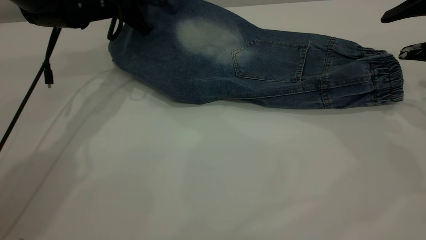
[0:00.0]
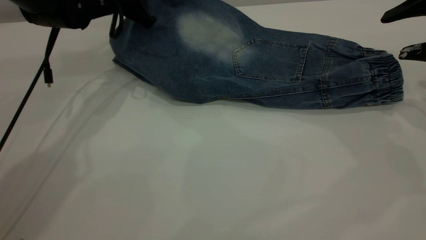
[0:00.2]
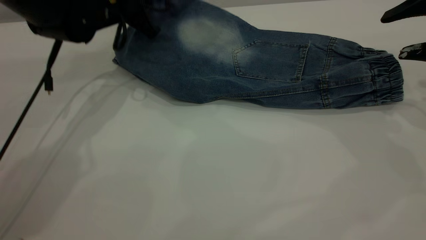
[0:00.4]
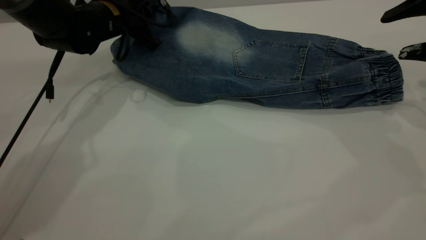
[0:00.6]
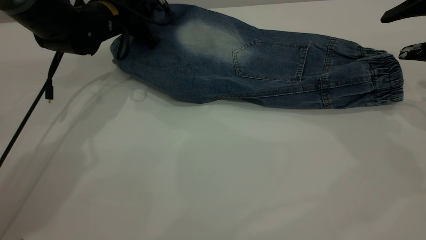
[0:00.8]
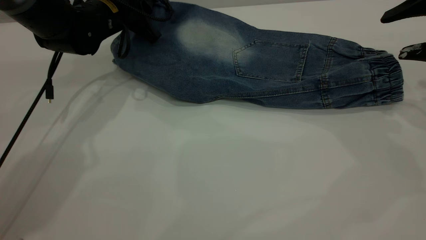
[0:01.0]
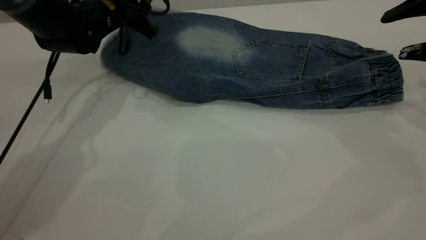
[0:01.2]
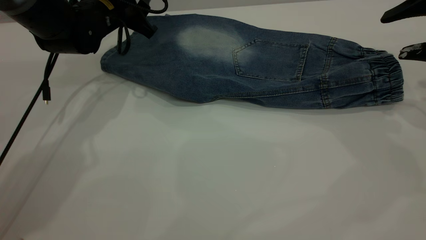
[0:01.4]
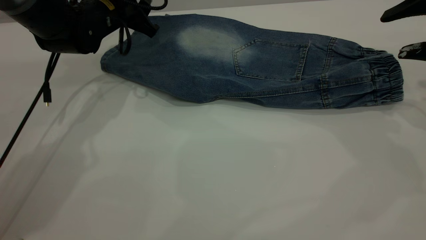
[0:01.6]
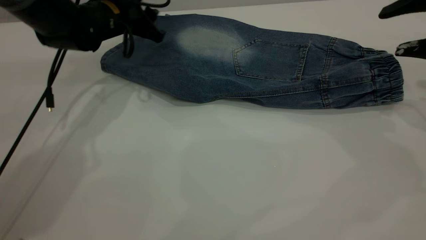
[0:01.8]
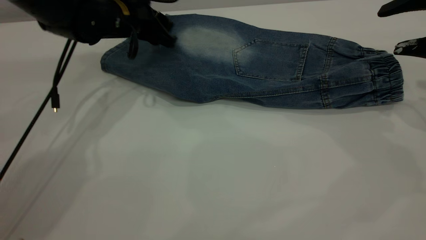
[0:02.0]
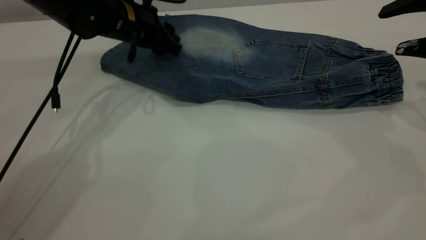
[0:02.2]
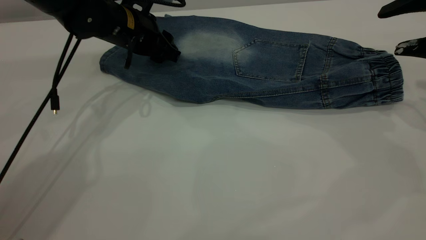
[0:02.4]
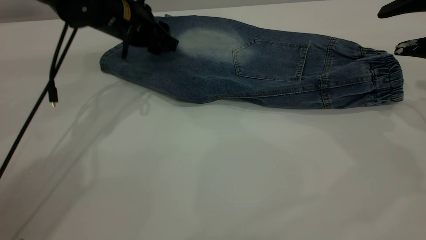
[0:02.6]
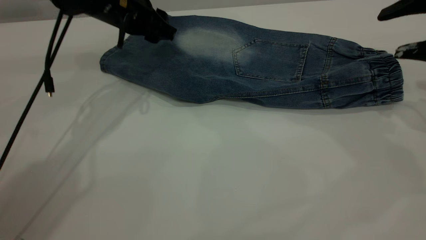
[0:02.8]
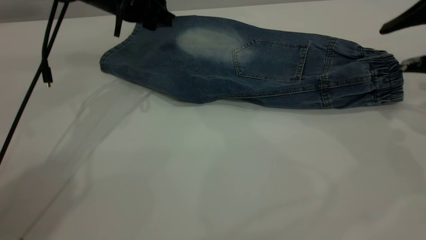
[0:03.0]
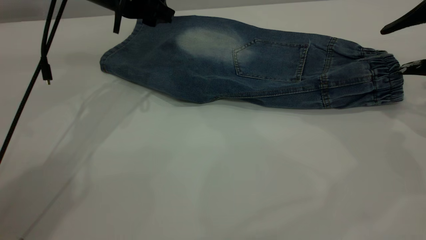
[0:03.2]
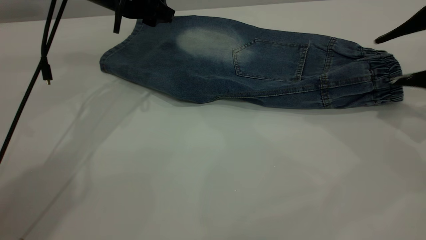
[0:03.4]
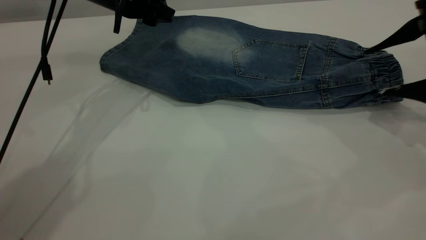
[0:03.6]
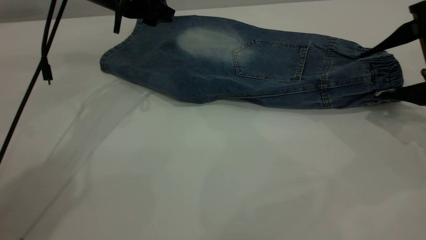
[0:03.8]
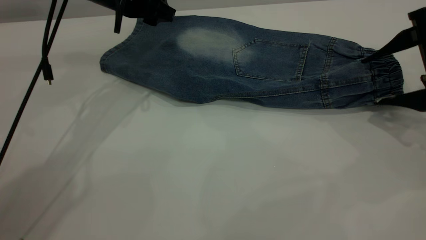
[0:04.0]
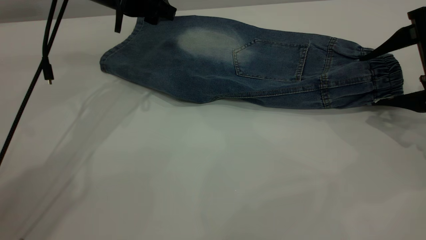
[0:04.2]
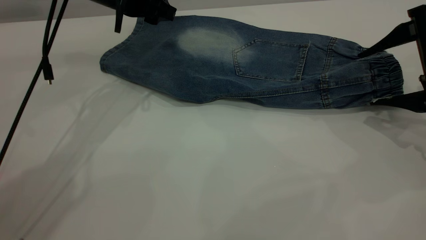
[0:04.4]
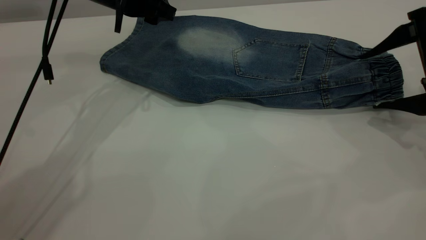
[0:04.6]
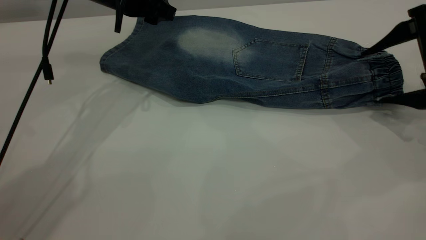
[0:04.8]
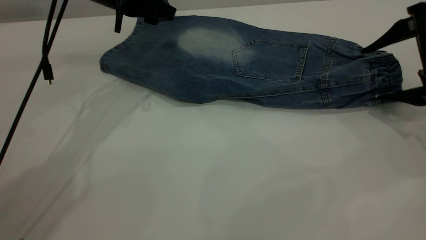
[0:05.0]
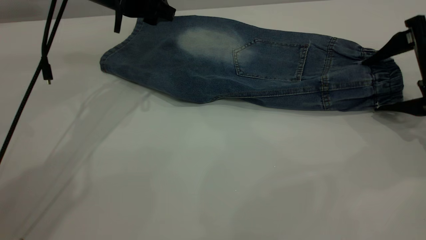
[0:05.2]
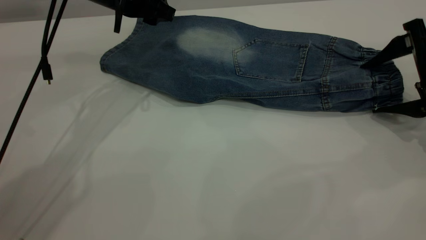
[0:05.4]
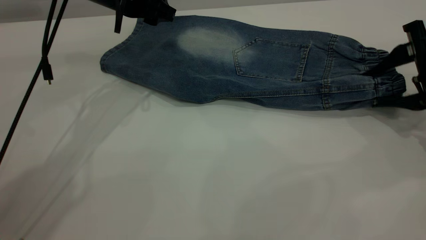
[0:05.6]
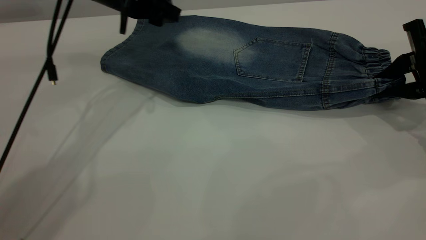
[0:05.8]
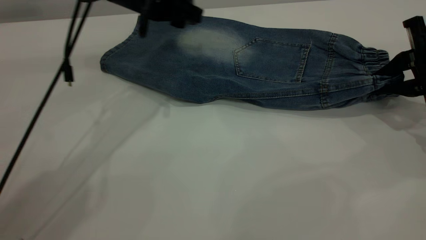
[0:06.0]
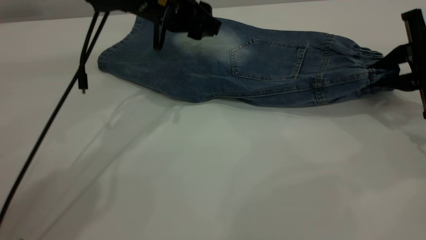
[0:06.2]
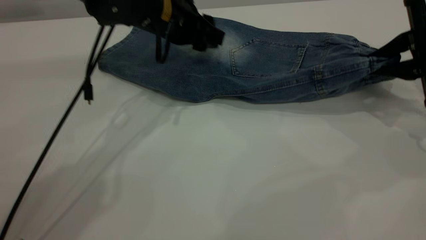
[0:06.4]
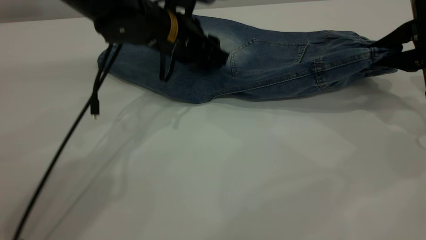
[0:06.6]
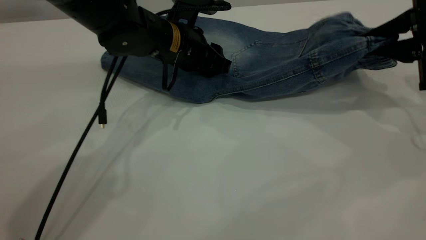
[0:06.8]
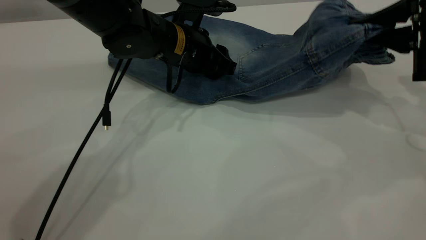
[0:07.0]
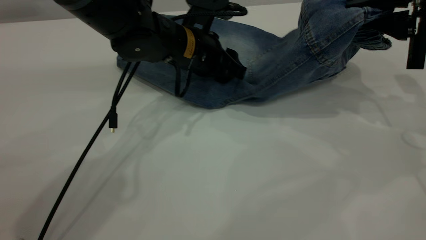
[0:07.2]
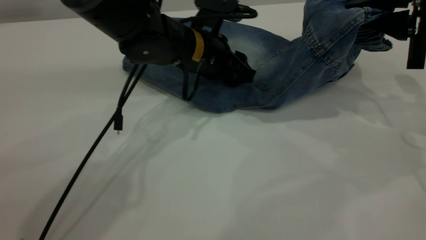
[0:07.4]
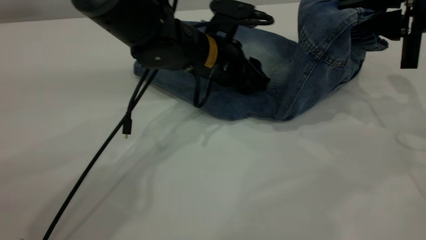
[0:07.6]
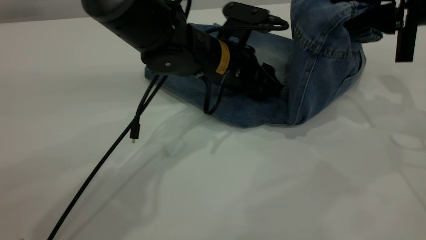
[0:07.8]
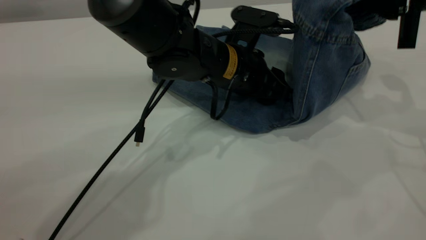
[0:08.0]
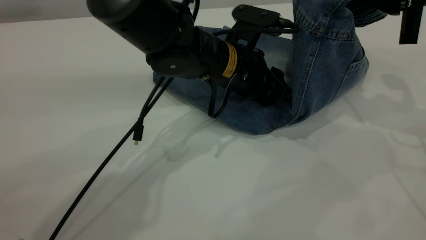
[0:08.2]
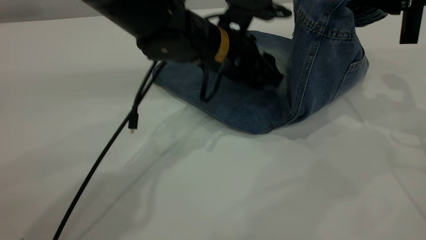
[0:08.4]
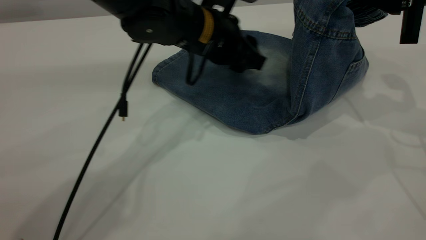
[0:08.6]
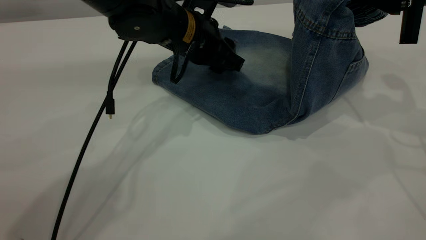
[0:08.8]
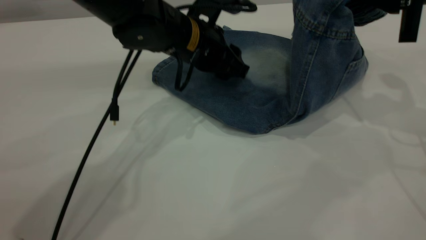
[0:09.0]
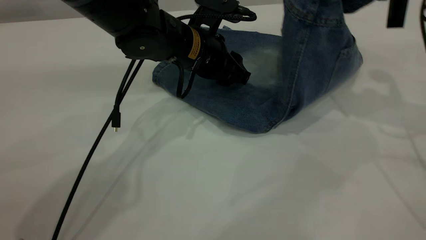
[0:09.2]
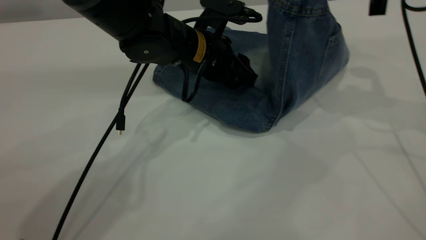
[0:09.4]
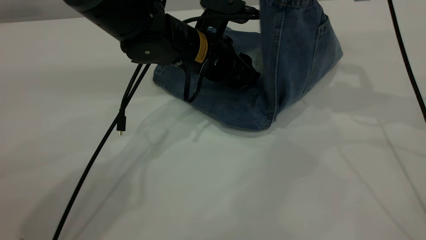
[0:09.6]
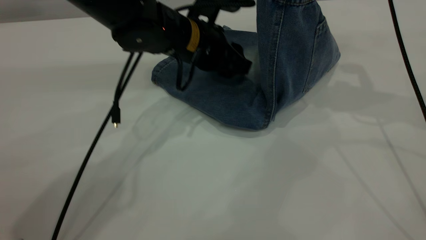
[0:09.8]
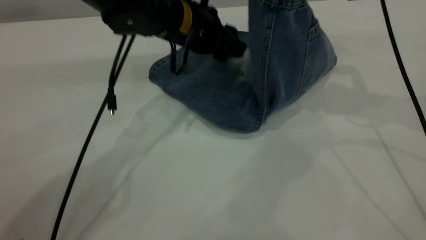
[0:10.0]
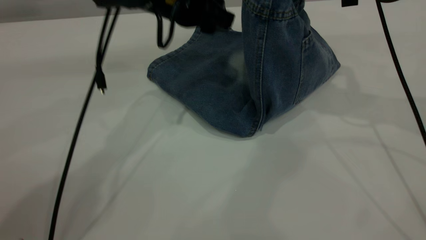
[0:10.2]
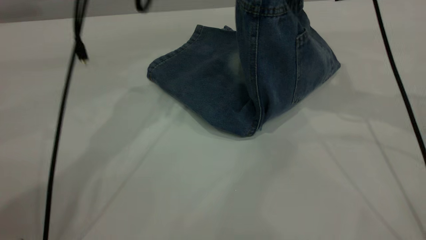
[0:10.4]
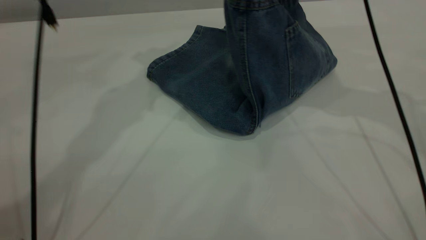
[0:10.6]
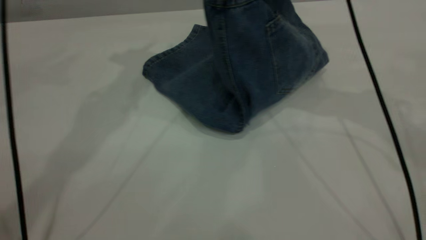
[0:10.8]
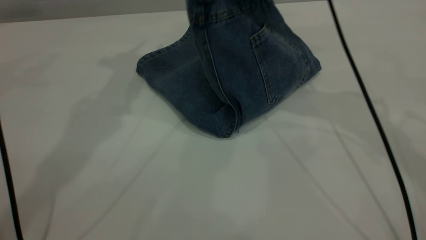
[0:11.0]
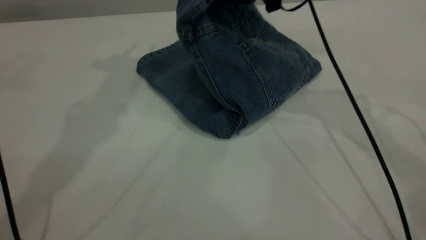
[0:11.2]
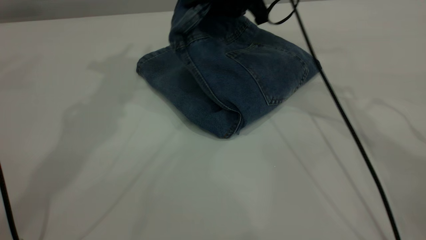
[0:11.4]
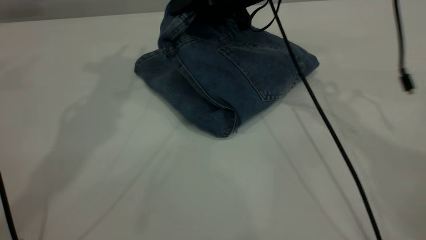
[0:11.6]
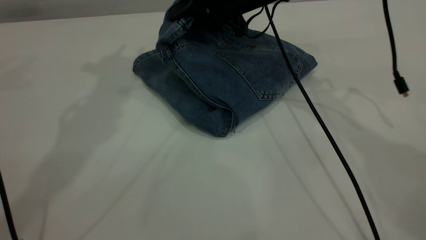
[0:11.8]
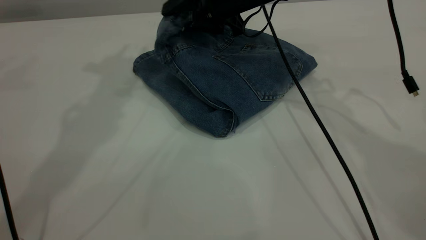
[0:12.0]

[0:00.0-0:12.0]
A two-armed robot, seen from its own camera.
0:00.0 to 0:01.6: The left gripper opens up.
0:01.6 to 0:03.0: The left gripper shifts approximately 5 cm upward.
0:04.4 to 0:06.0: The left gripper goes about 5 cm to the right. The right gripper closes.
0:06.0 to 0:07.6: The right gripper travels upward by approximately 5 cm; the left gripper moves downward, to the right and backward, some 15 cm.
0:07.6 to 0:09.0: The grippers stay close to where they were, moving slightly.
0:09.0 to 0:10.4: The left gripper is displaced upward and to the left by about 15 cm, while the right gripper moves to the left, some 10 cm.
0:10.4 to 0:12.0: The left gripper moves upward and to the left, about 15 cm; the right gripper heads to the left, downward and forward, covering some 15 cm, and opens up.

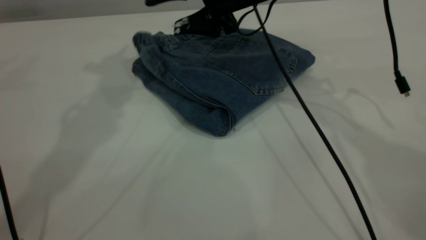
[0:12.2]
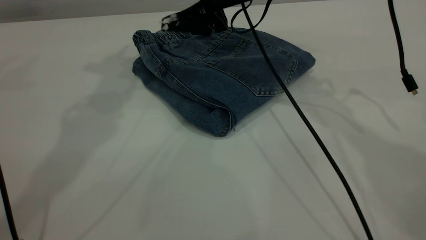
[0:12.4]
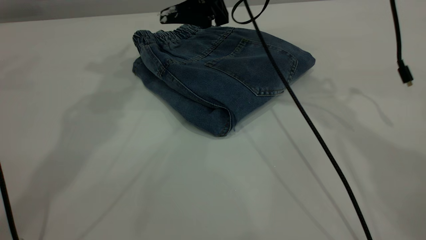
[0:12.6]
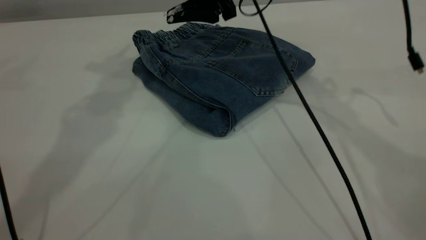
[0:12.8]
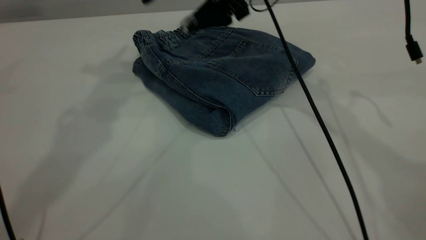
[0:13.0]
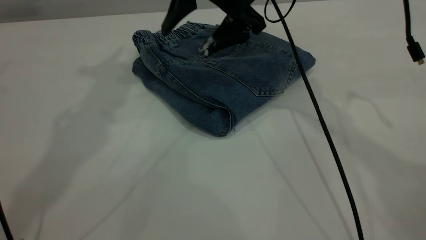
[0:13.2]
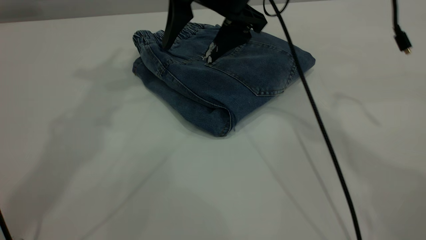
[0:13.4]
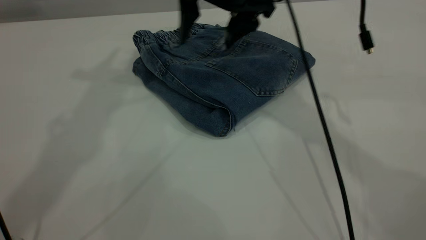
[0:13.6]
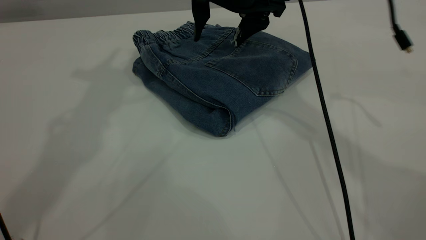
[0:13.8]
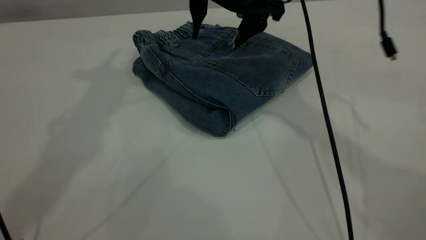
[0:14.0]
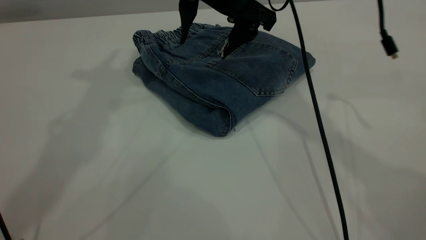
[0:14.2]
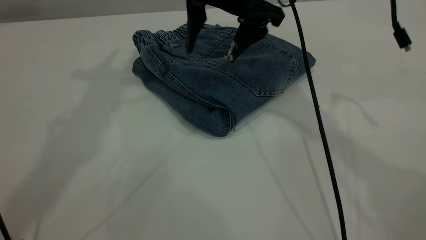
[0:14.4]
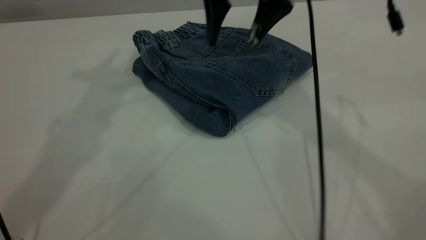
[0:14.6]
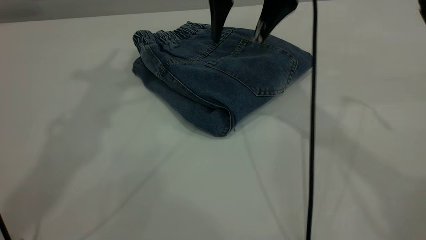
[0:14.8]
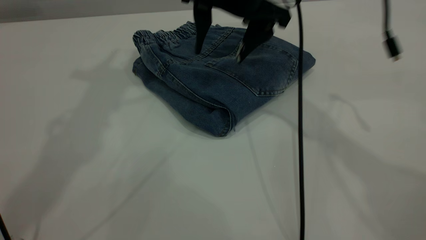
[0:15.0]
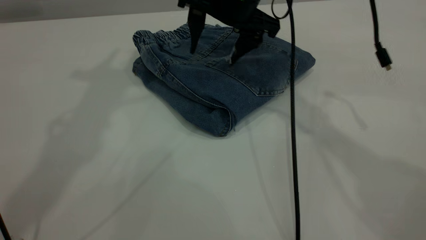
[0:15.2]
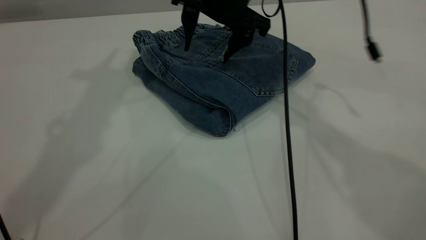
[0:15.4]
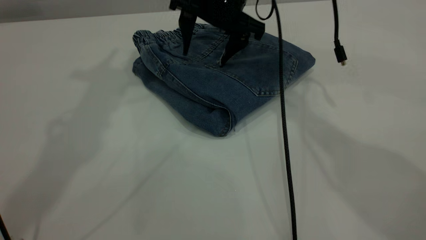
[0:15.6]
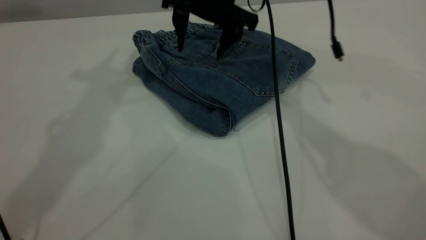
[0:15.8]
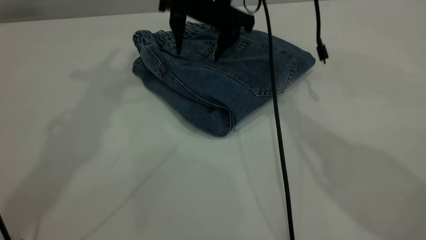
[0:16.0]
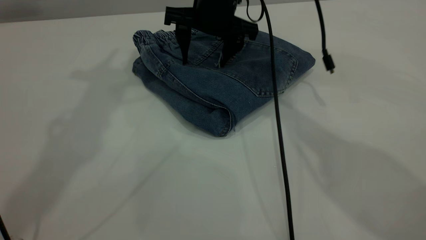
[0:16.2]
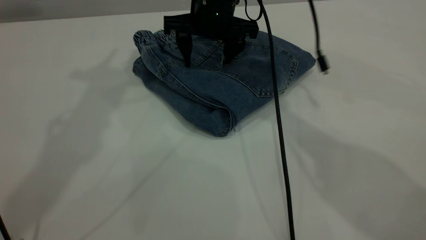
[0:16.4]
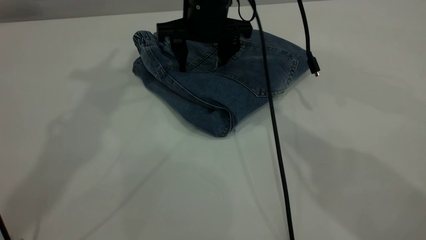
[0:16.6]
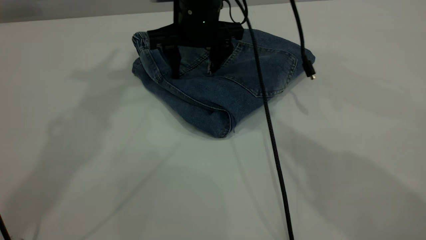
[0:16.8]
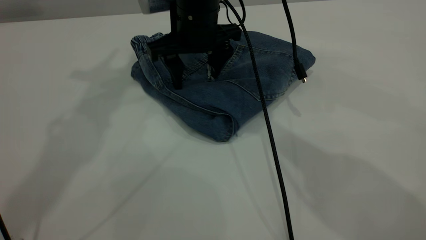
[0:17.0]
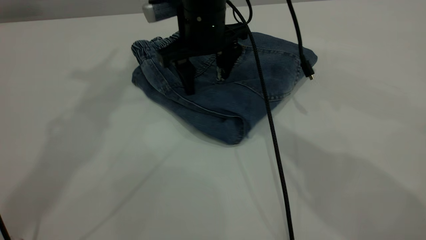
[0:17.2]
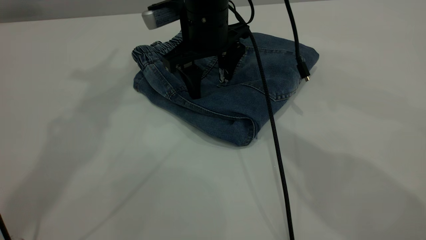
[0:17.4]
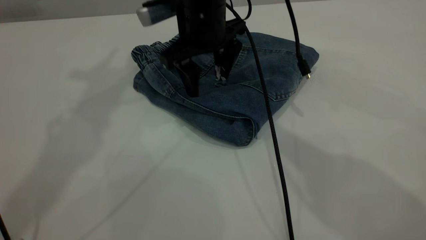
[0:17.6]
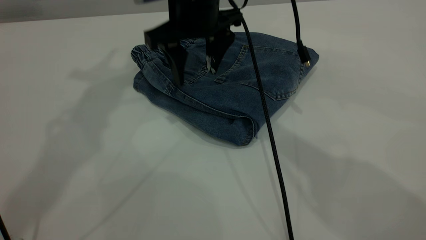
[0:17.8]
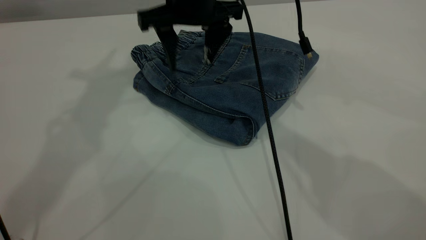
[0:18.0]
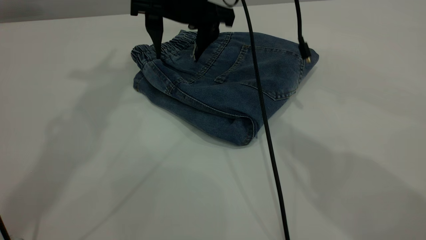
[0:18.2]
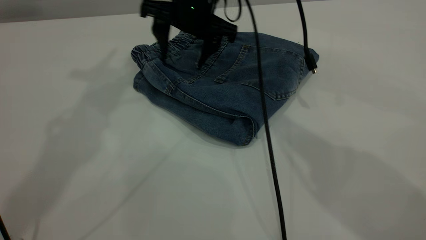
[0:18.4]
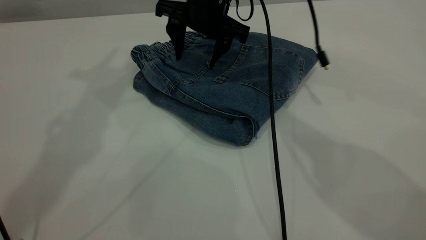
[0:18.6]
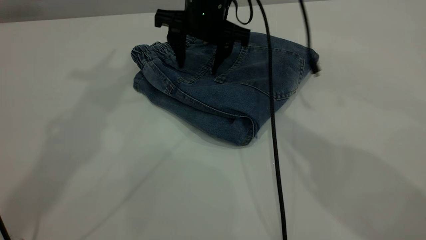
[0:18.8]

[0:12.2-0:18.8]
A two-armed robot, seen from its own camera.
0:12.2 to 0:13.8: The left gripper heads upward, covering about 5 cm.
0:13.8 to 0:15.4: There are only small adjustments of the grippers.
0:15.4 to 0:17.2: The right gripper changes place by roughly 5 cm.
